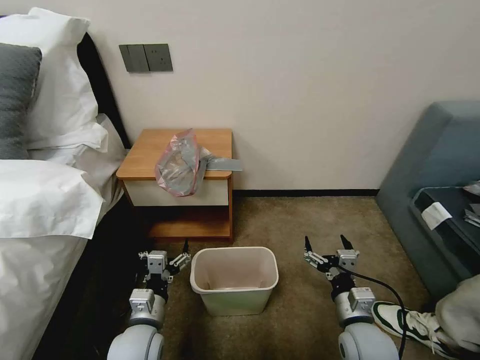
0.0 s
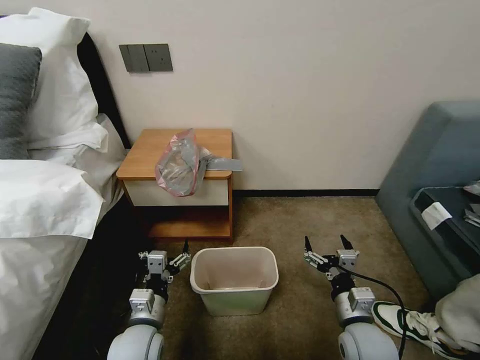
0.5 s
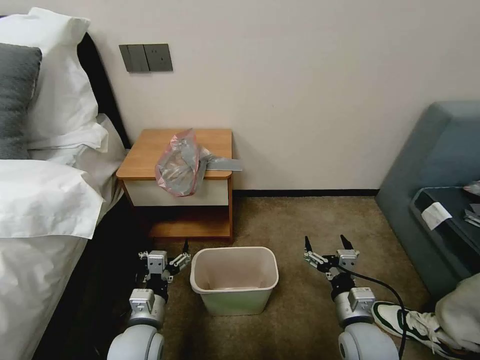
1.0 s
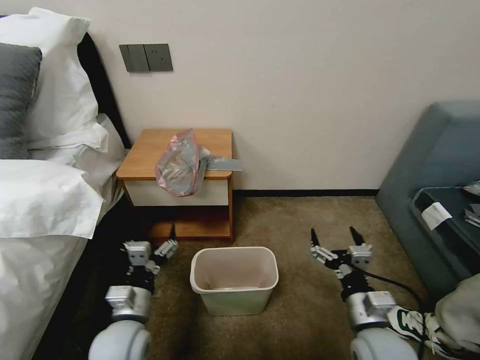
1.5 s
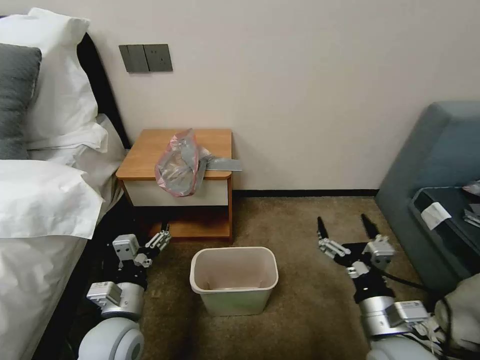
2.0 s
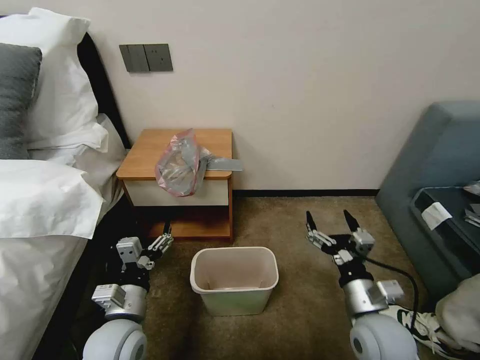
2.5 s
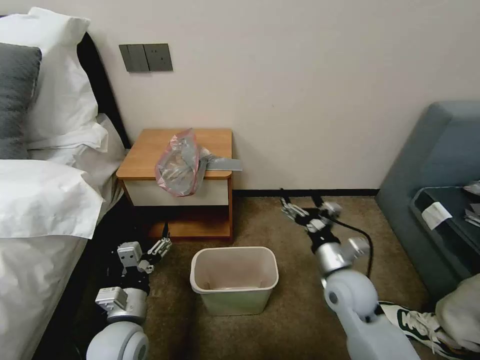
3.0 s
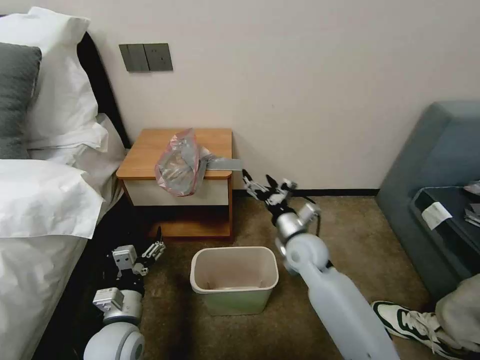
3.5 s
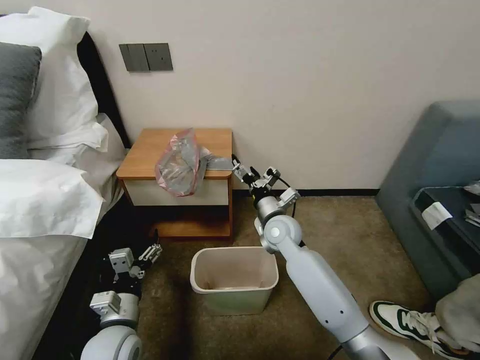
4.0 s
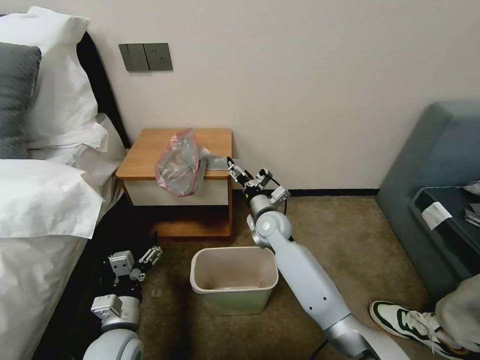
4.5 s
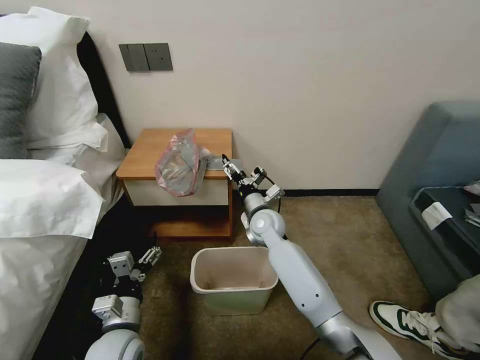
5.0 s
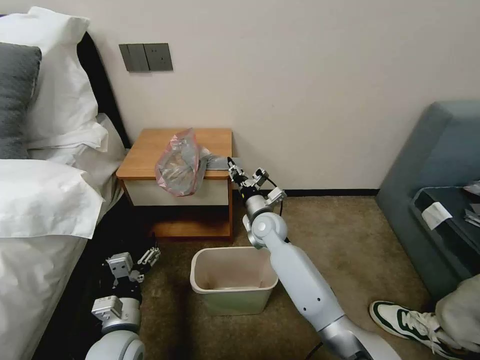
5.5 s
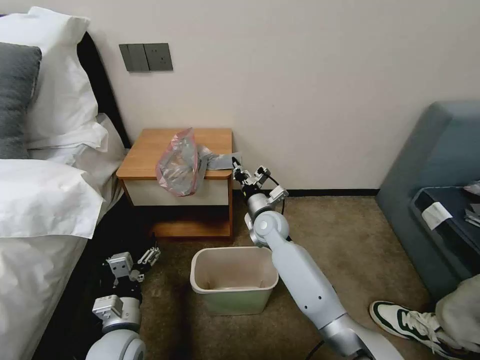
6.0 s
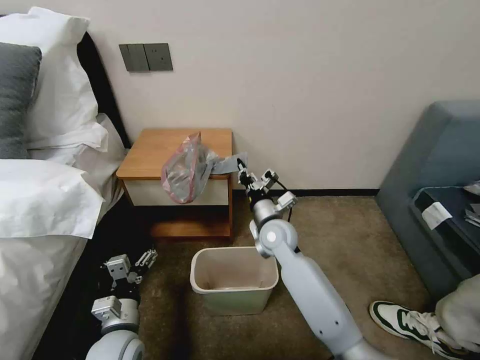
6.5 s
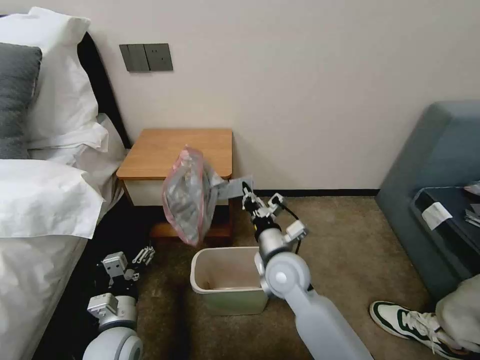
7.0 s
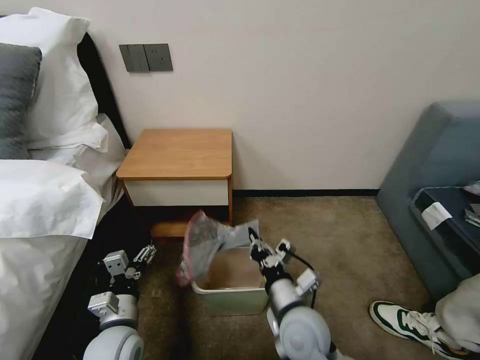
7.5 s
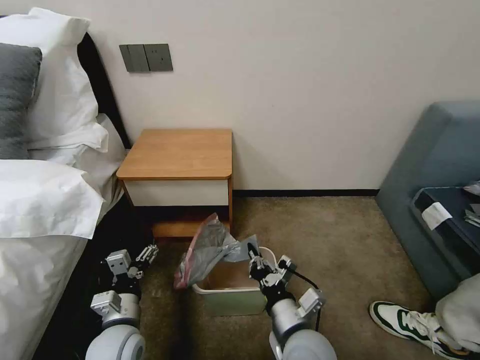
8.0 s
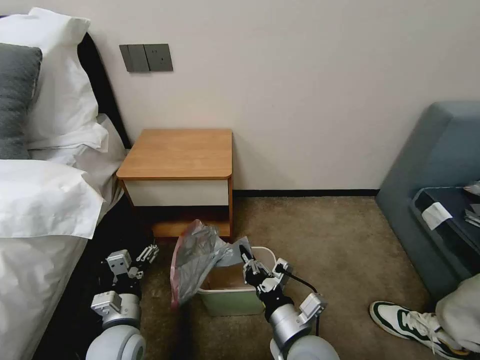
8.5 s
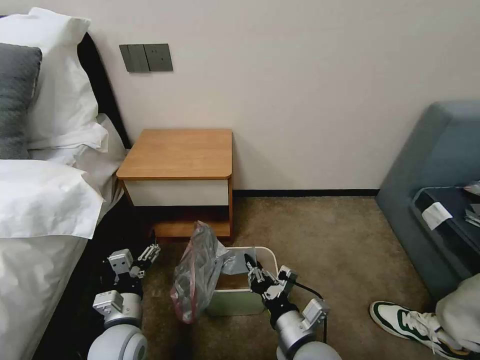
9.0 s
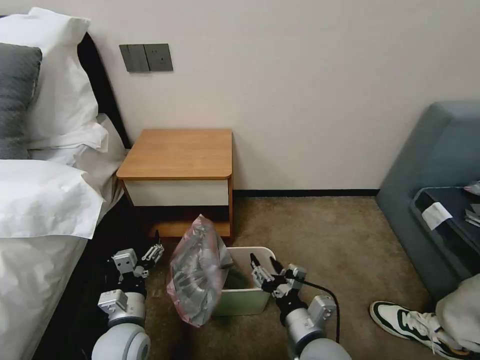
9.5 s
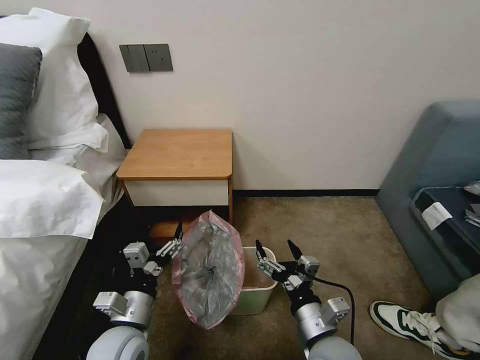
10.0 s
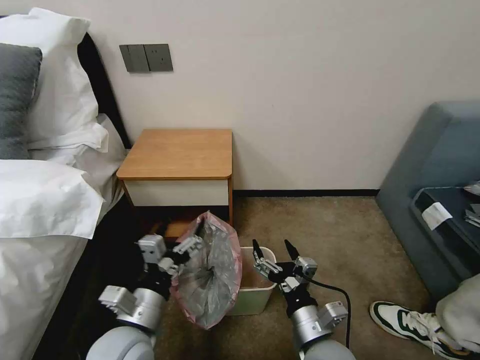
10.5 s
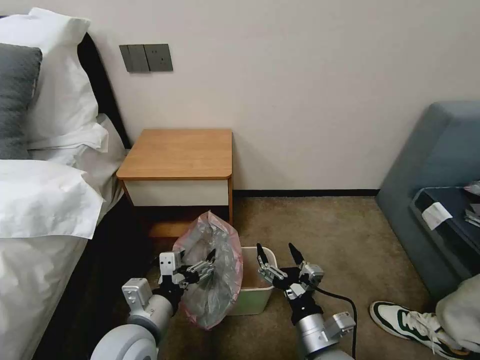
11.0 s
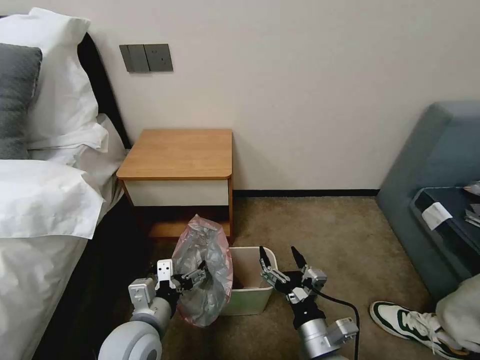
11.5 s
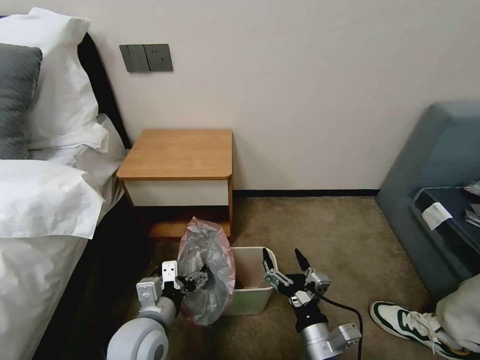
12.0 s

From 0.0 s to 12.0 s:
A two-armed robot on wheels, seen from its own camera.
Task of the whole recording: Pick up the garbage bag from the table and place it over the trash can.
From 2.0 s to 4.0 s: The right gripper travels forward and to the left by roughly 30 cm, while the left gripper changes place by roughly 5 cm.
From 4.0 s to 6.0 s: The right gripper closes.
From 6.0 s to 8.0 s: The right gripper is displaced backward by about 30 cm.
From 8.0 s to 10.0 s: The right gripper opens.

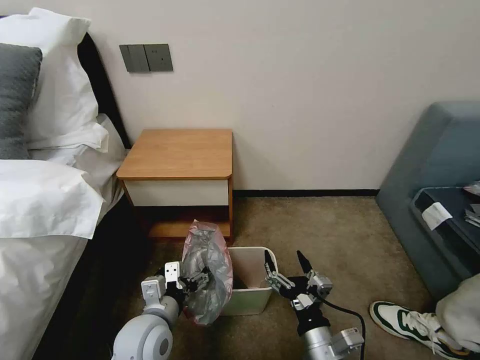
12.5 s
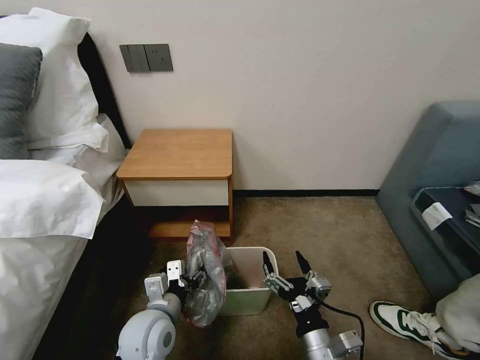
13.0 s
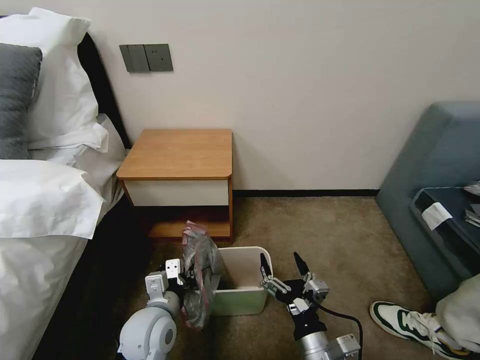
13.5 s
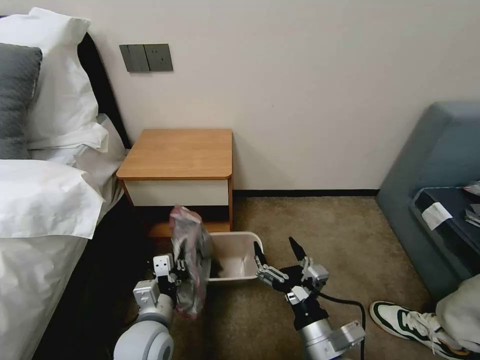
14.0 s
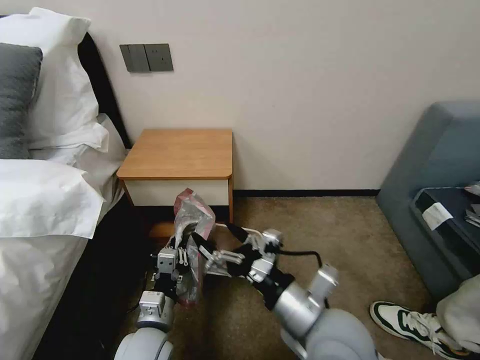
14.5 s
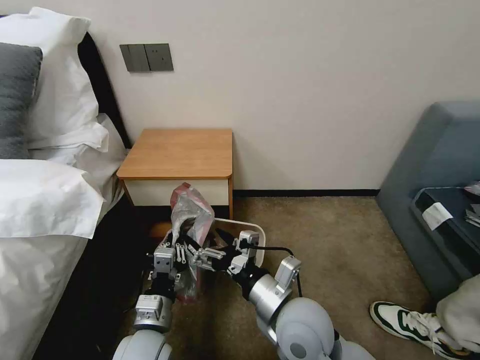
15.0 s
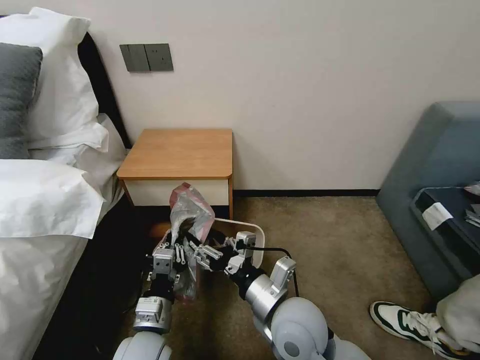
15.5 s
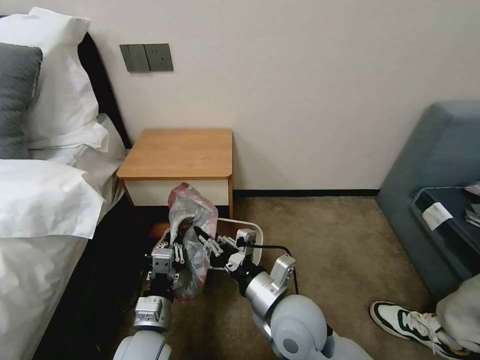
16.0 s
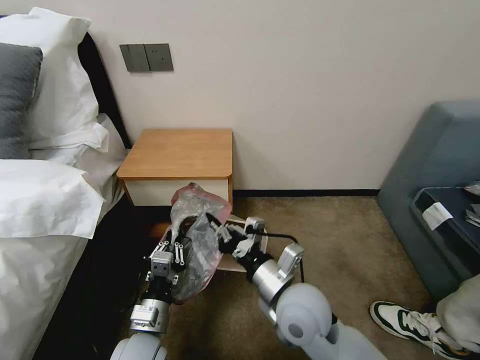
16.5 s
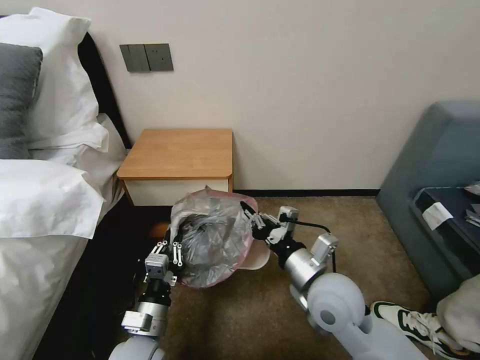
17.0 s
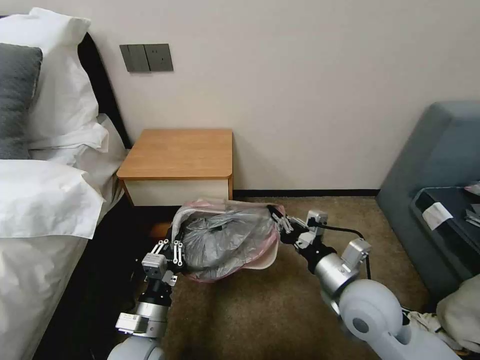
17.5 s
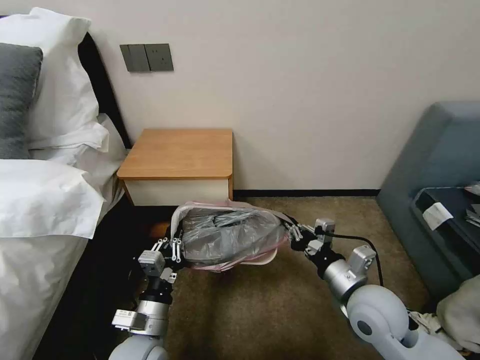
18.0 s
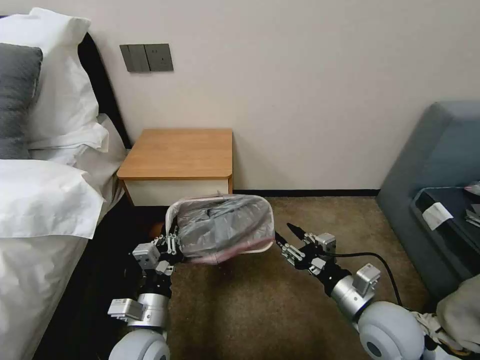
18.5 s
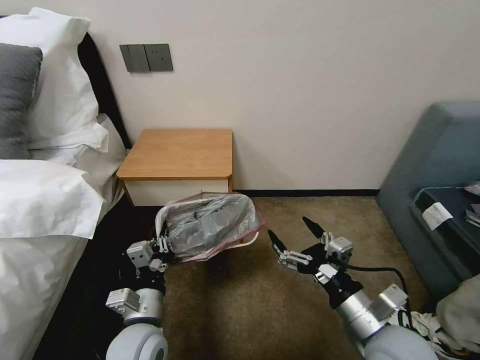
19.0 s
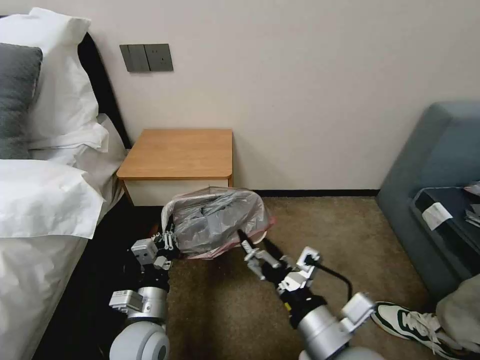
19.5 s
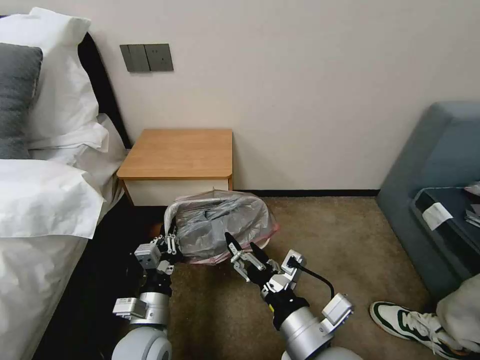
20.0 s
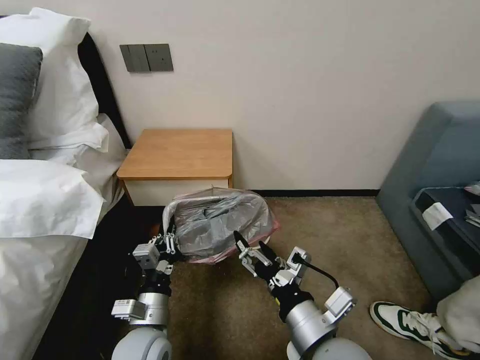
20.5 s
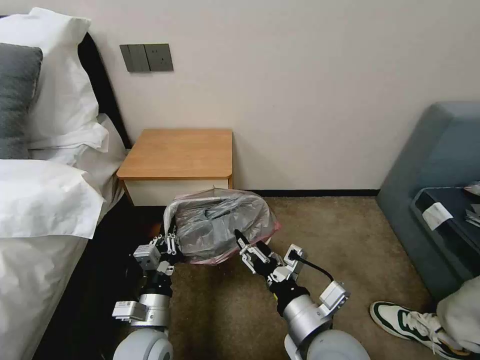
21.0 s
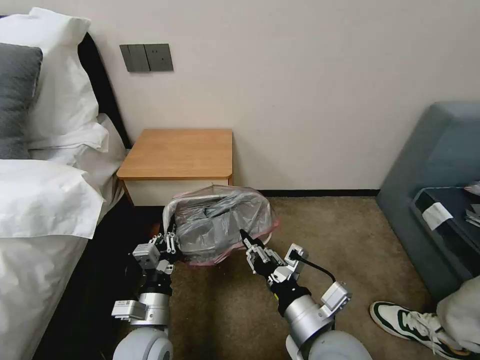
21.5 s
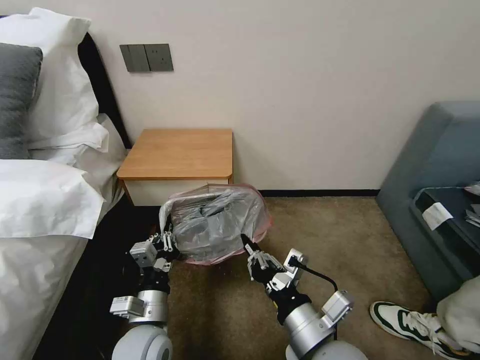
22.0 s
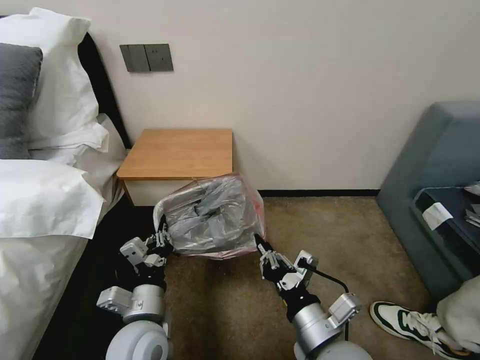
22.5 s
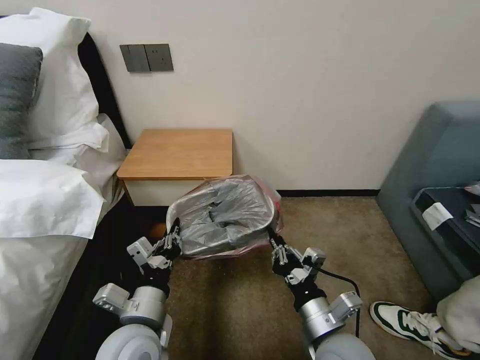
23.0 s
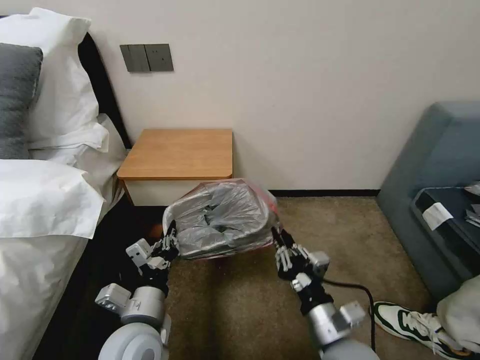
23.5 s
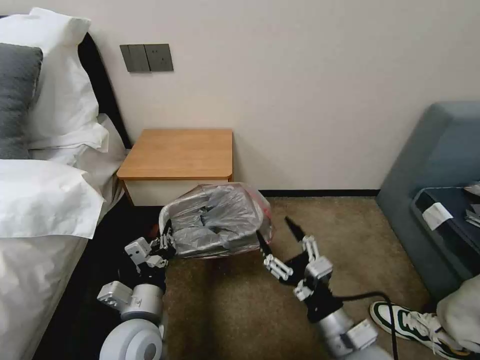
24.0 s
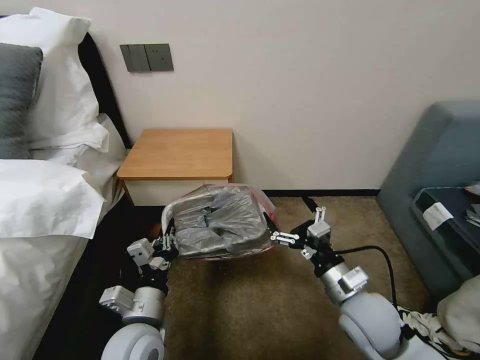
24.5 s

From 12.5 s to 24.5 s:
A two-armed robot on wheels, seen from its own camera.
Task of the whole recording: Pick up the garbage bag from the table and place it over the trash can.
From 12.5 s to 14.5 s: The right gripper travels upward by some 15 cm, while the left gripper closes.
From 14.5 s to 16.5 s: The right gripper heads forward, covering some 5 cm, and closes.
From 16.5 s to 18.5 s: The right gripper heads to the right, covering approximately 15 cm, and opens.
From 18.5 s to 20.5 s: The right gripper shifts approximately 15 cm to the left and backward, and opens its fingers.
From 20.5 s to 22.5 s: The right gripper closes up.
From 22.5 s to 24.5 s: The right gripper heads forward and to the right, covering approximately 10 cm, and opens up.

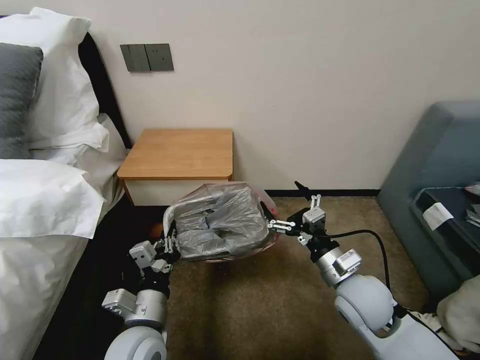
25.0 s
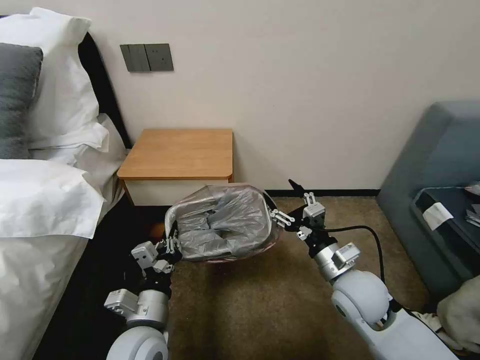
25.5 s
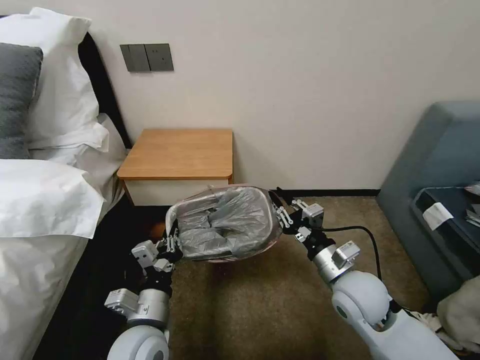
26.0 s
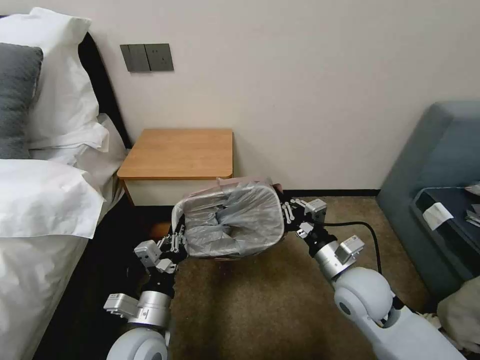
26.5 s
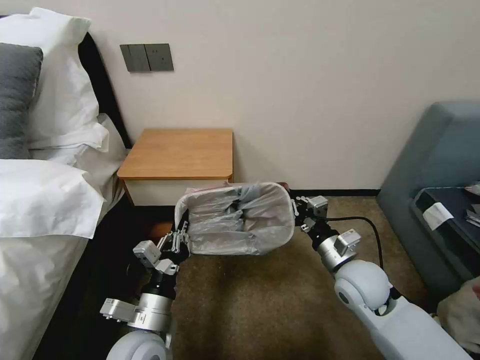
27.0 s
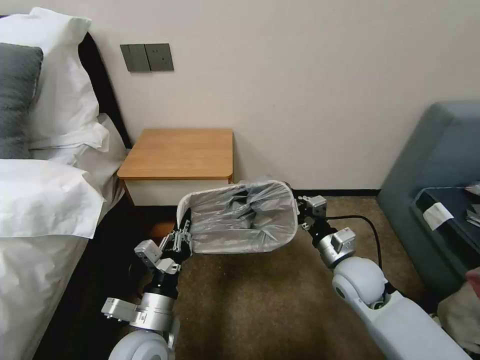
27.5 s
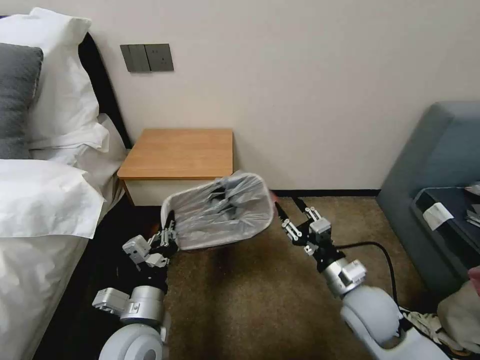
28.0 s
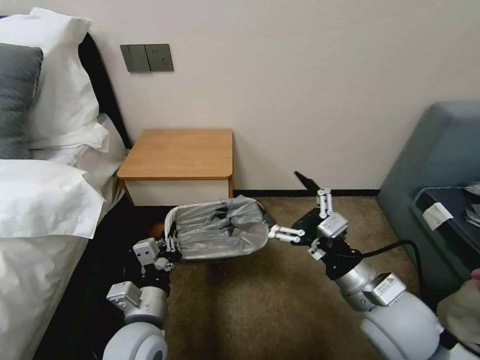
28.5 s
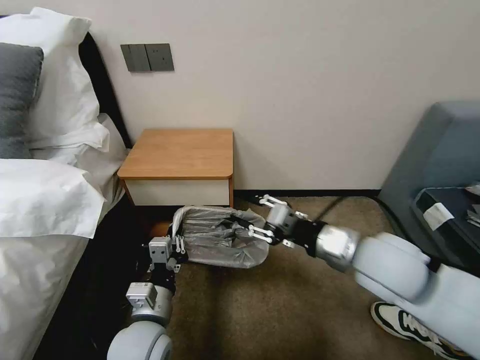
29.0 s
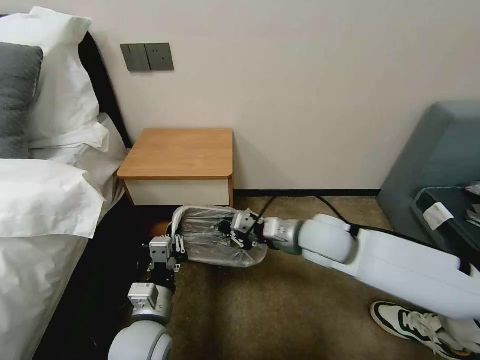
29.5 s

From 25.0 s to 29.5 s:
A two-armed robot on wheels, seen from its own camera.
Task of the whole recording: Pick up the garbage bag from the table and place it over the trash can.
From 25.0 s to 27.0 s: The right gripper closes.
From 27.0 s to 29.5 s: The right gripper heads to the left, upward and forward, covering some 15 cm, and opens and closes again.
